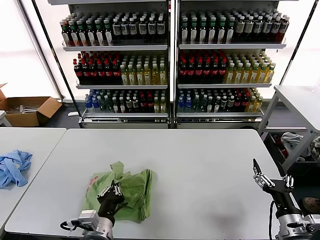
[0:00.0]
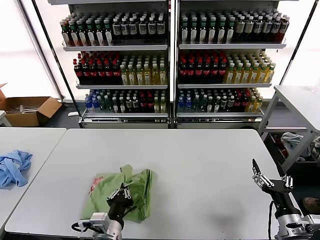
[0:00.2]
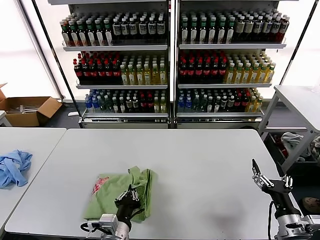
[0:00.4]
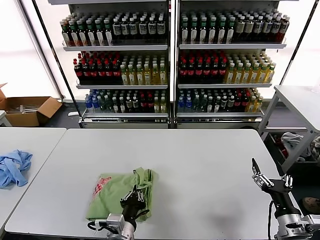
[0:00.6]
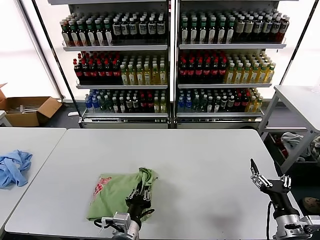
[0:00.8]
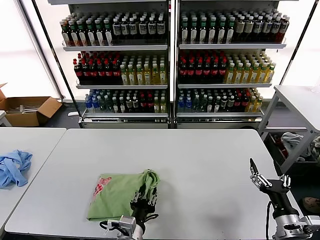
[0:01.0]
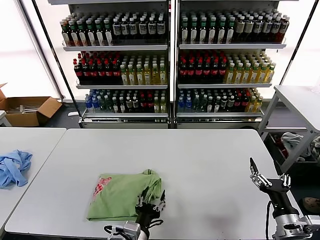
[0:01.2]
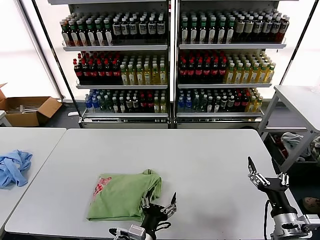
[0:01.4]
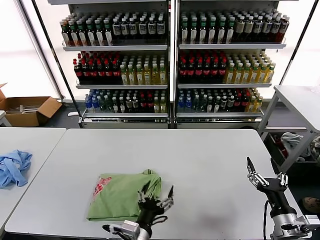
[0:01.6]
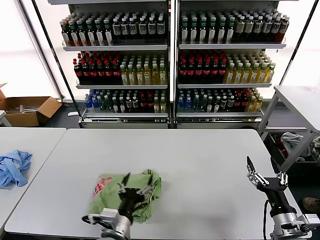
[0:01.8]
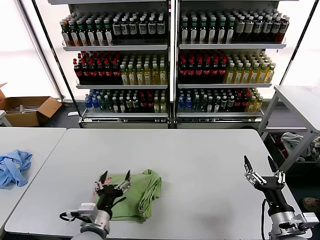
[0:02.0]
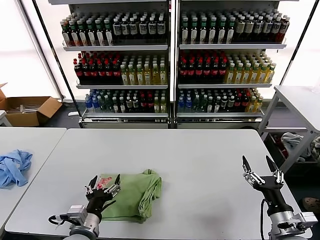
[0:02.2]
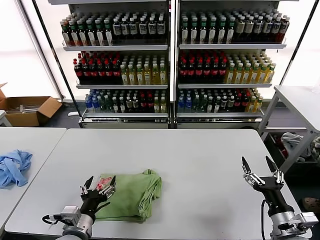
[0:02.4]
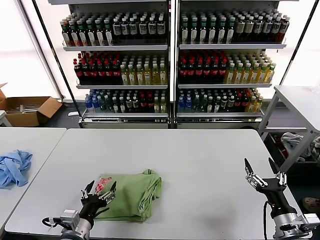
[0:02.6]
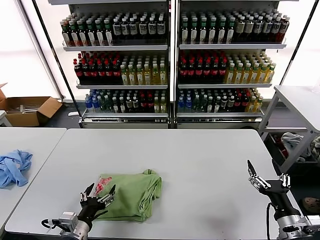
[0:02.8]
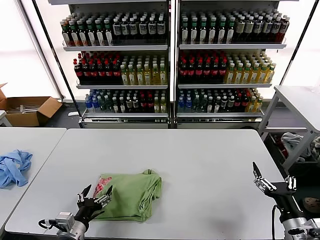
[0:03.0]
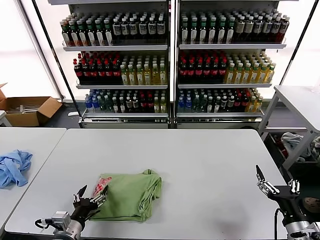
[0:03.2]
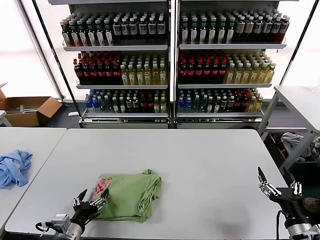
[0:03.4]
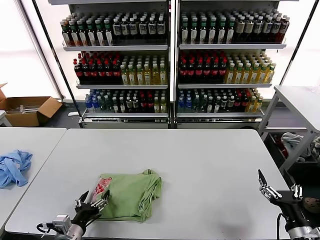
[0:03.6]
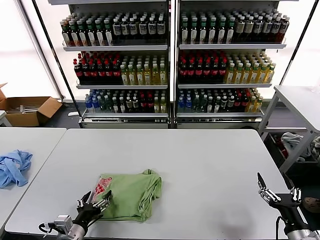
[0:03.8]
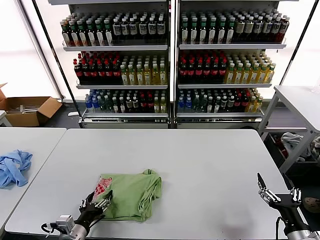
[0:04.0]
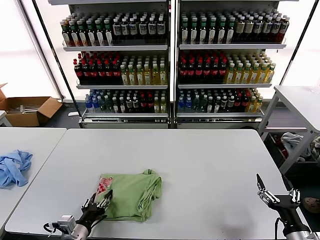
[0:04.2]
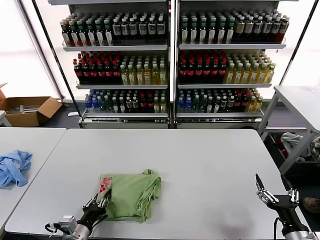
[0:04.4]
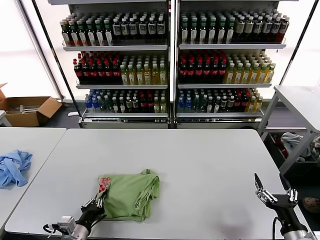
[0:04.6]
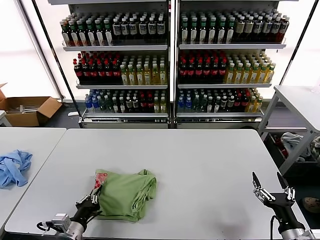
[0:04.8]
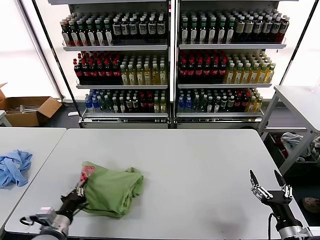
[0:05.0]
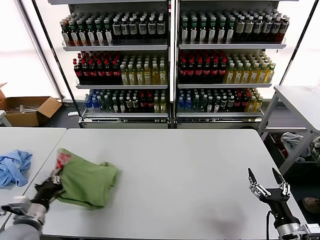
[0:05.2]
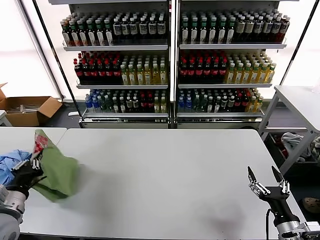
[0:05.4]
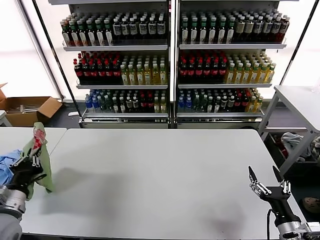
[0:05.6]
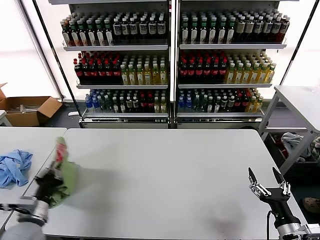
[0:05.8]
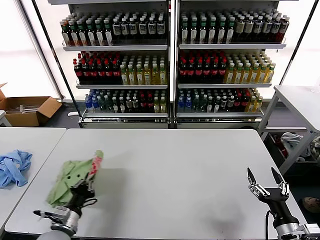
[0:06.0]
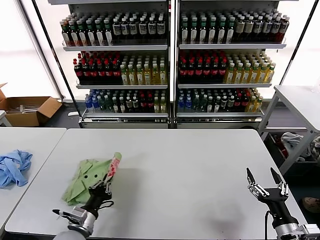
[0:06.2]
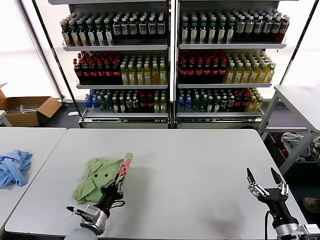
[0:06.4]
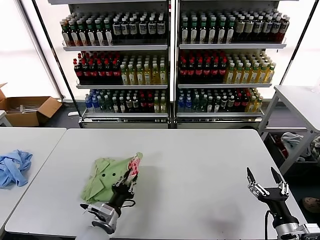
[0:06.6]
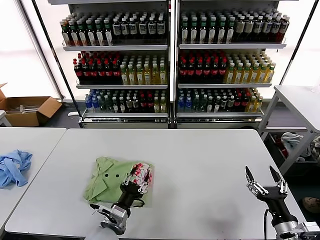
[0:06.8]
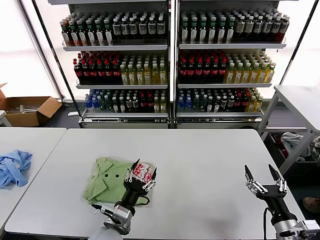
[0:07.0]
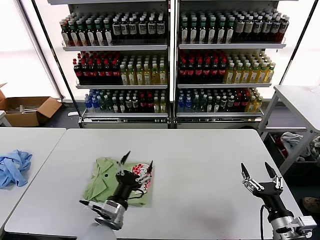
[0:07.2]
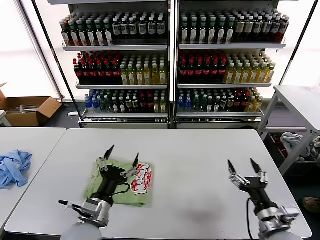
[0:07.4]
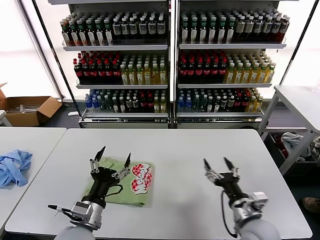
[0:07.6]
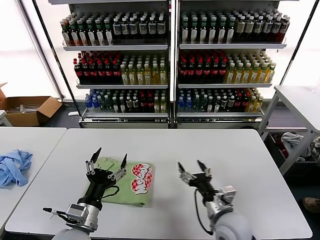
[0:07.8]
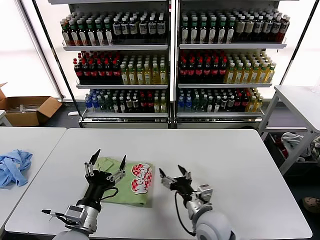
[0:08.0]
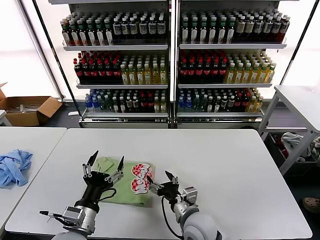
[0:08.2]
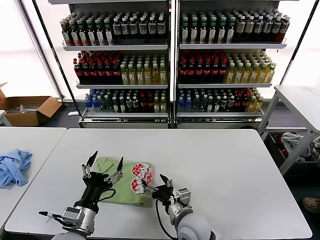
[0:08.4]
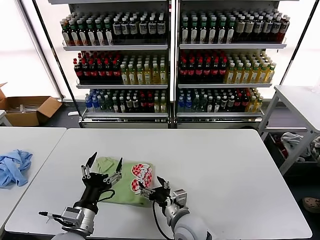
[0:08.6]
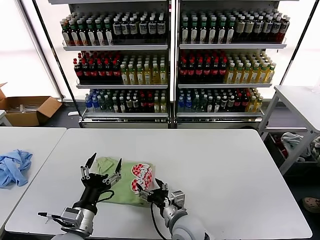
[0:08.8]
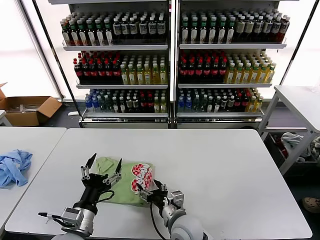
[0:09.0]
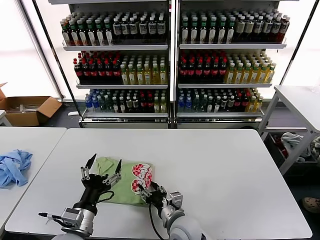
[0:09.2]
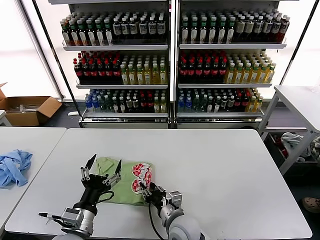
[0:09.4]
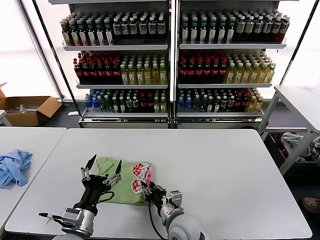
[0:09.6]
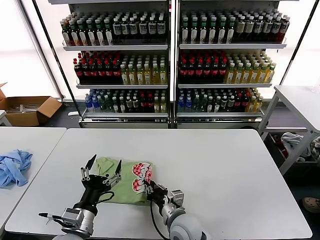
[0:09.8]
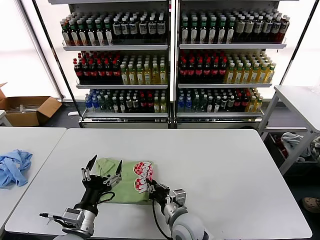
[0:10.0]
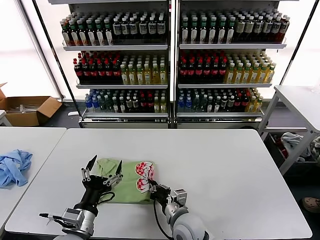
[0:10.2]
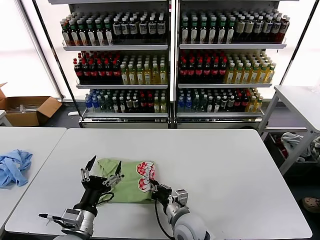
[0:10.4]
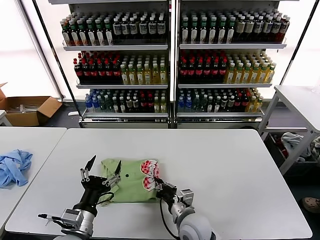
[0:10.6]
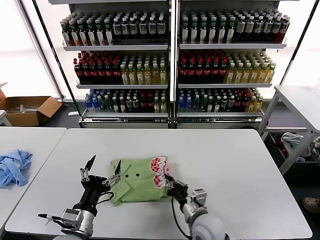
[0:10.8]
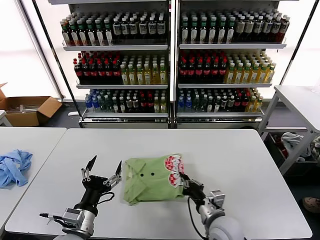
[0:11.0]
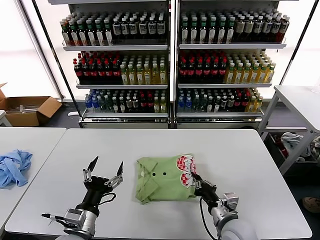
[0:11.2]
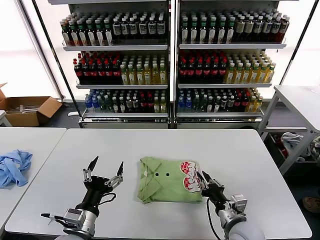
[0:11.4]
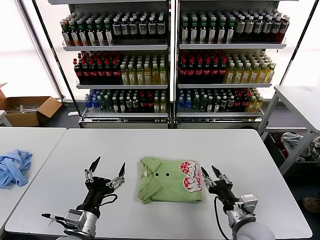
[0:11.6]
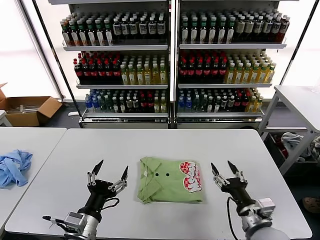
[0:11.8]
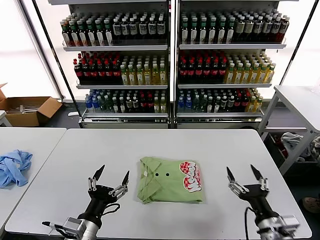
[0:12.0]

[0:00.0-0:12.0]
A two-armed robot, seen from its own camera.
Task of the whole recording: fold and organize the clothes.
Step, 0:01.4 to 0:06.8: Flip the folded clothes over with left gripper.
Step, 0:07.0 to 0:11.4: Drag the clothes to the center of the table.
0:00.0 to 0:01.6: The left gripper shifts about 10 cm to the right, and opens its fingers.
0:01.6 to 0:03.0: The left gripper travels to the left by approximately 20 cm.
0:03.0 to 0:04.4: The left gripper closes.
0:04.4 to 0:06.0: The left gripper moves approximately 15 cm upward and comes back, and closes its fingers.
0:06.0 to 0:07.6: The right gripper goes about 10 cm to the left and forward. Meanwhile the left gripper travels to the right and upward by roughly 15 cm, and opens up.
0:07.6 to 0:09.0: The right gripper shifts approximately 20 cm to the left.
0:09.0 to 0:10.4: The right gripper closes.
0:10.4 to 0:12.0: The right gripper is displaced to the right, backward and upward by about 25 cm, and opens its fingers.

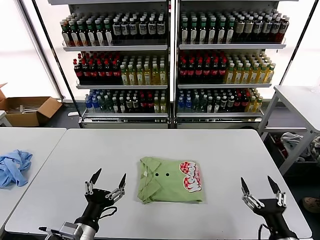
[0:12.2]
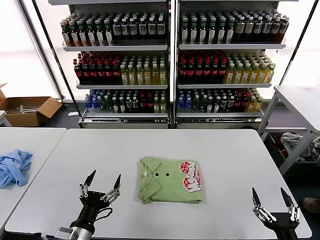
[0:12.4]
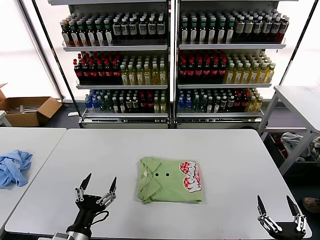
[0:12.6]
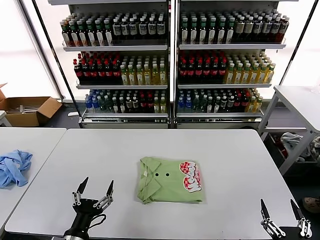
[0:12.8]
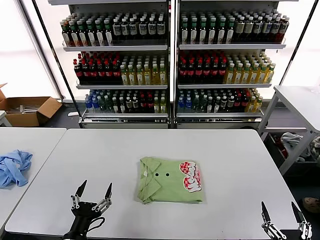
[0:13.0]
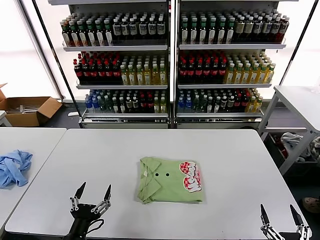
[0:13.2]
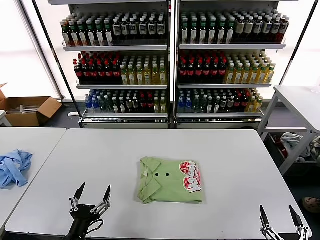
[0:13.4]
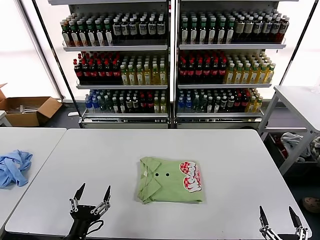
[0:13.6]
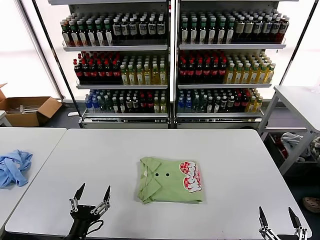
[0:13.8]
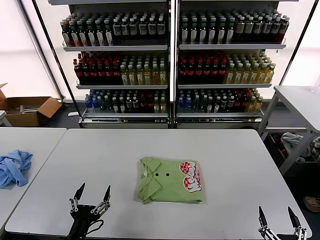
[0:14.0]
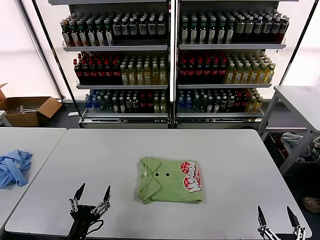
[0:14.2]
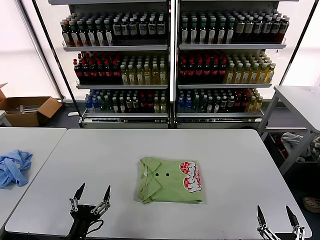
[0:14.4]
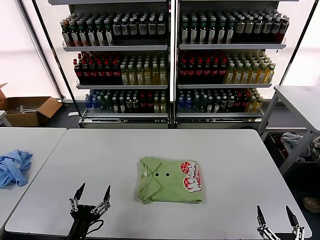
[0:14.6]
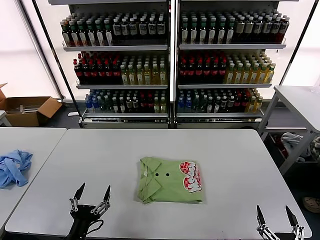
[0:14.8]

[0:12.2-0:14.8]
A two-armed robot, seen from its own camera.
Task of the whole recording: fold and organize the clothes.
0:12.2 to 0:13.4: The left gripper moves some 5 cm. Meanwhile the right gripper moves backward, about 10 cm.
